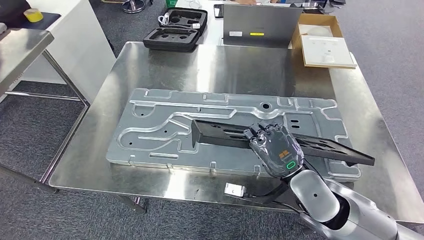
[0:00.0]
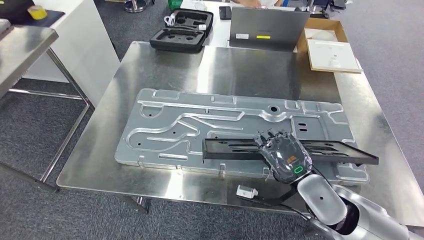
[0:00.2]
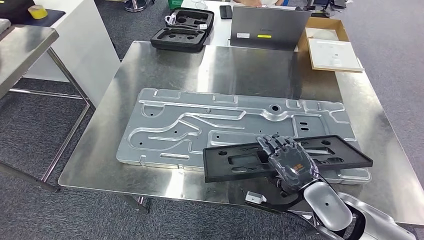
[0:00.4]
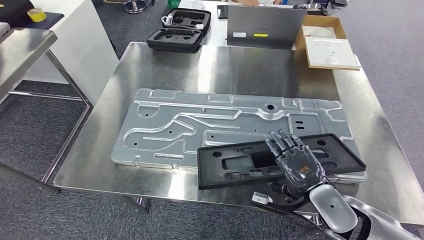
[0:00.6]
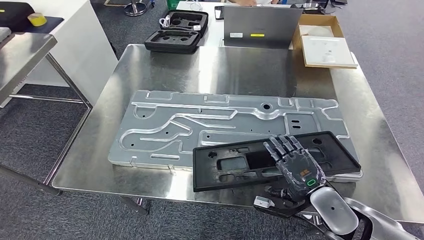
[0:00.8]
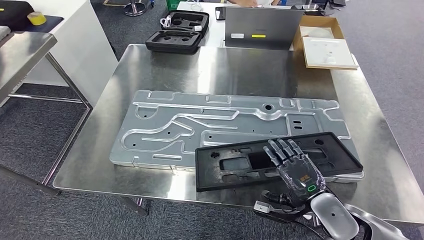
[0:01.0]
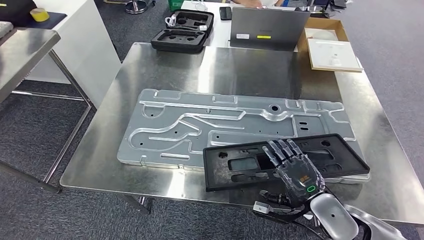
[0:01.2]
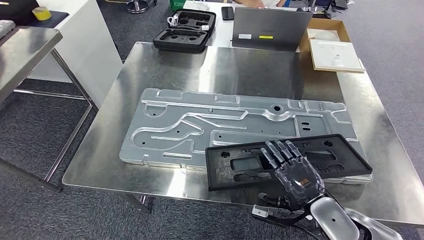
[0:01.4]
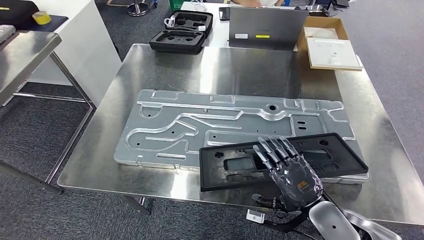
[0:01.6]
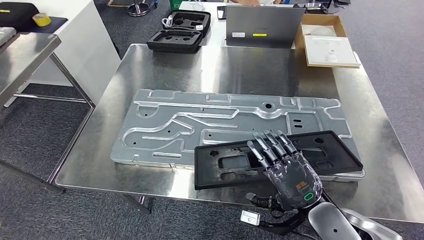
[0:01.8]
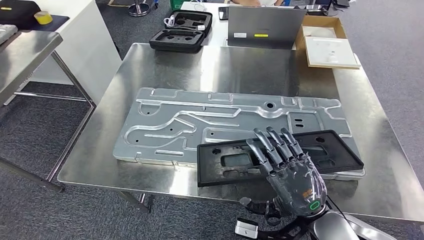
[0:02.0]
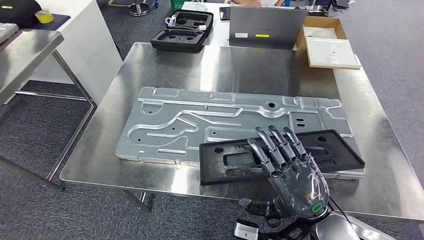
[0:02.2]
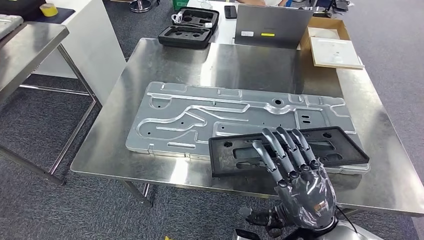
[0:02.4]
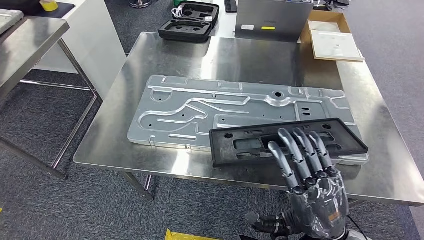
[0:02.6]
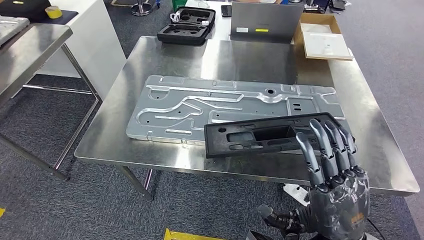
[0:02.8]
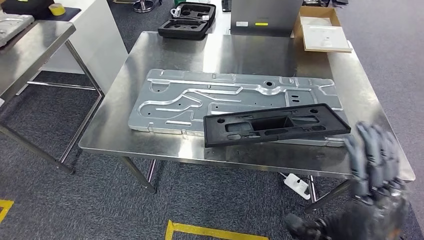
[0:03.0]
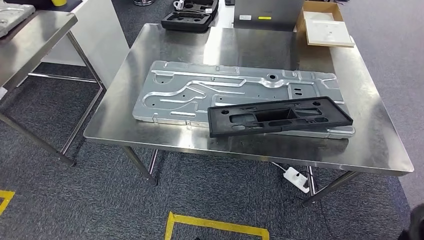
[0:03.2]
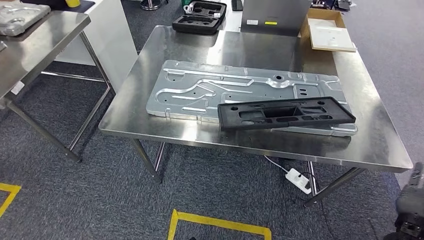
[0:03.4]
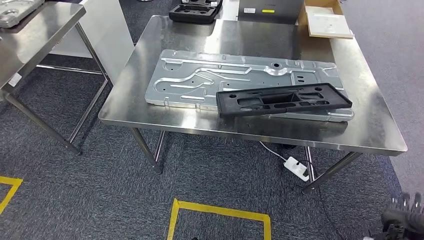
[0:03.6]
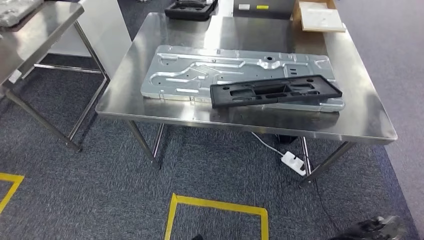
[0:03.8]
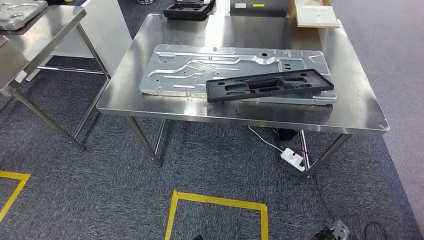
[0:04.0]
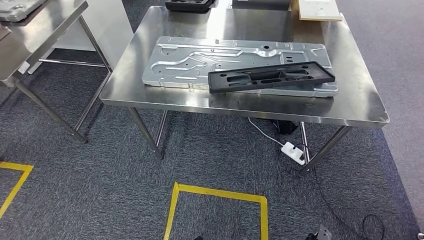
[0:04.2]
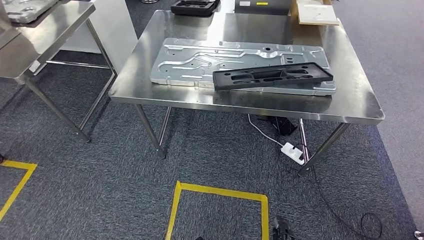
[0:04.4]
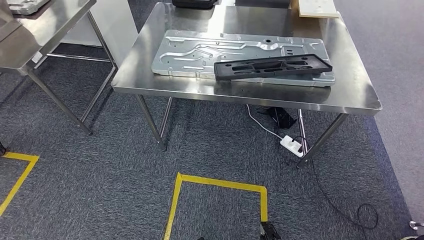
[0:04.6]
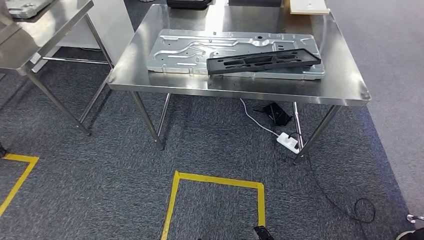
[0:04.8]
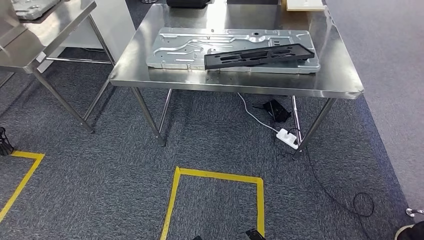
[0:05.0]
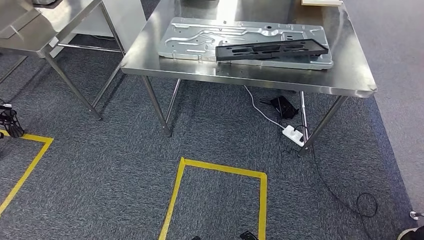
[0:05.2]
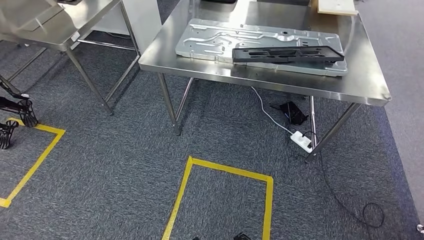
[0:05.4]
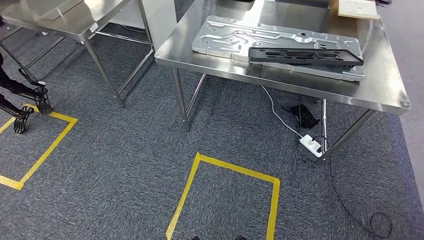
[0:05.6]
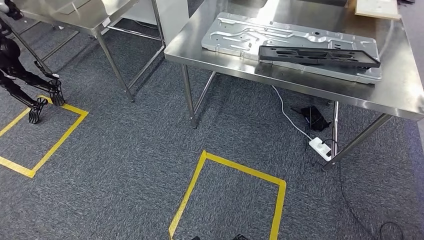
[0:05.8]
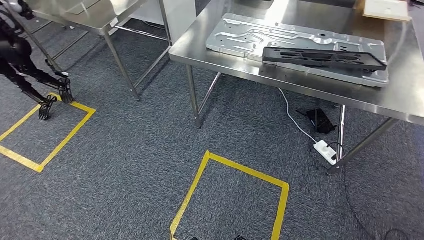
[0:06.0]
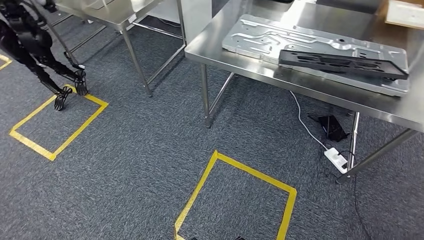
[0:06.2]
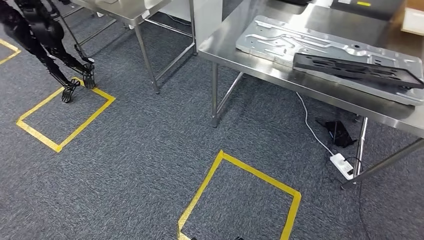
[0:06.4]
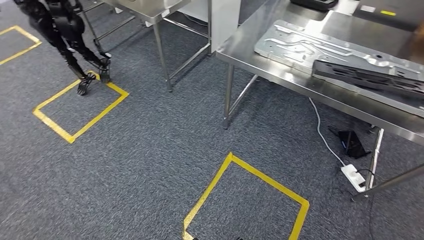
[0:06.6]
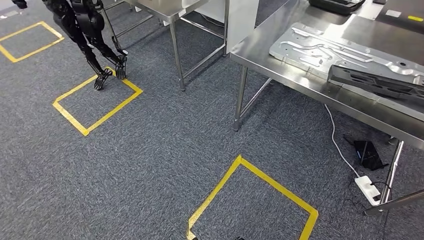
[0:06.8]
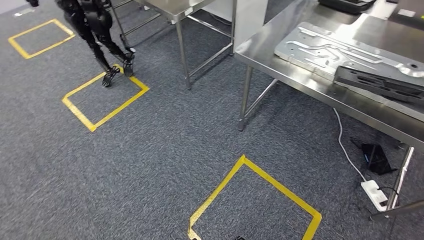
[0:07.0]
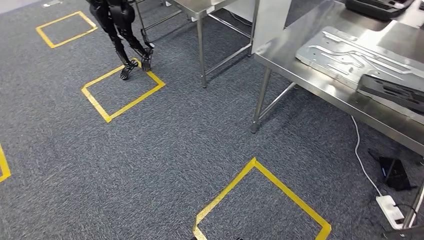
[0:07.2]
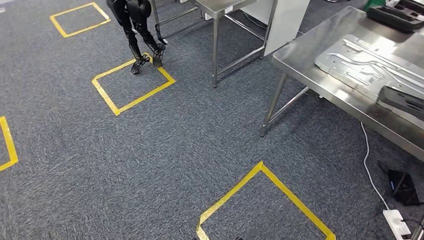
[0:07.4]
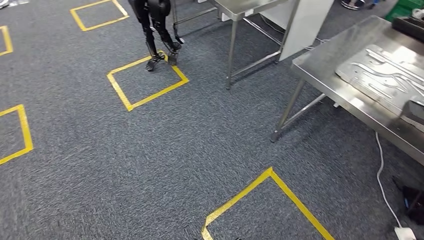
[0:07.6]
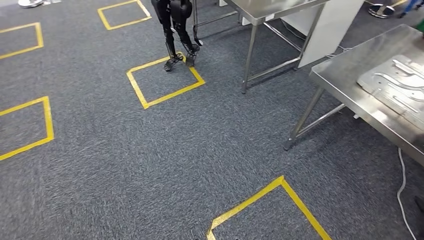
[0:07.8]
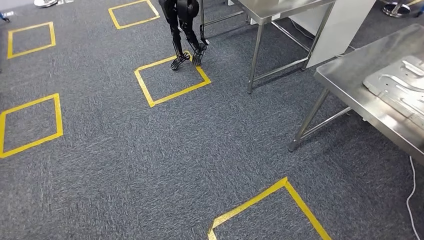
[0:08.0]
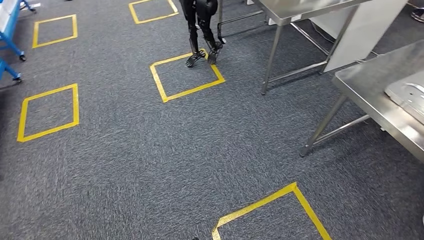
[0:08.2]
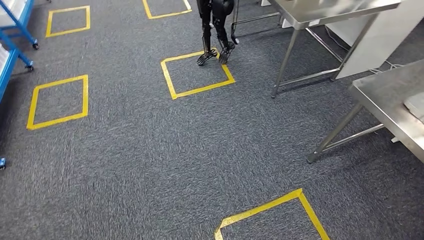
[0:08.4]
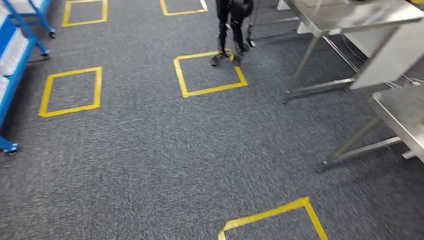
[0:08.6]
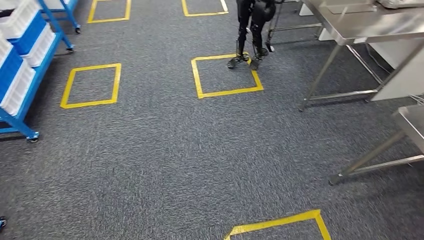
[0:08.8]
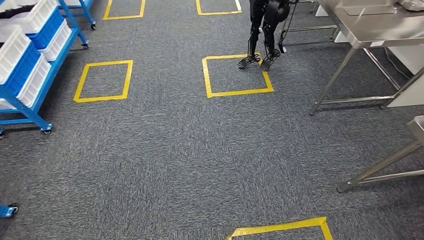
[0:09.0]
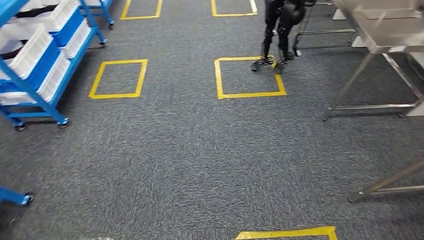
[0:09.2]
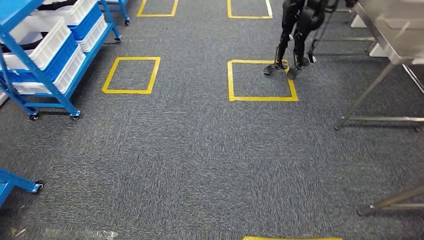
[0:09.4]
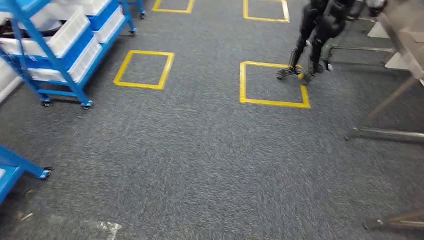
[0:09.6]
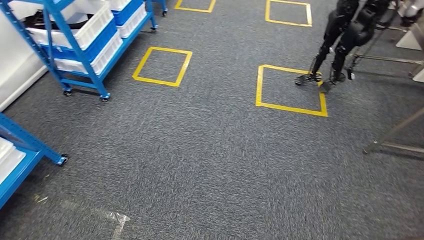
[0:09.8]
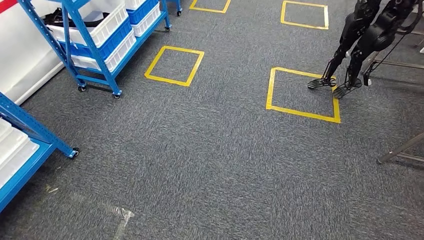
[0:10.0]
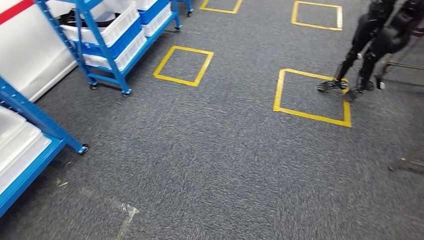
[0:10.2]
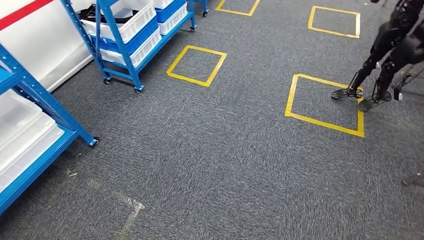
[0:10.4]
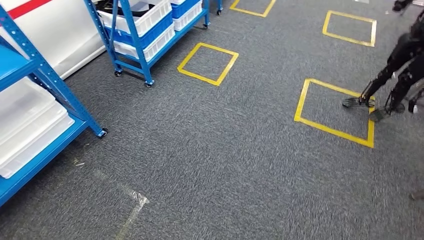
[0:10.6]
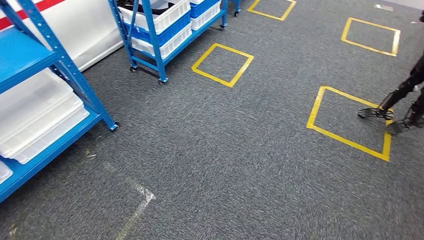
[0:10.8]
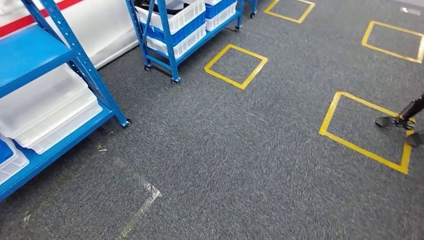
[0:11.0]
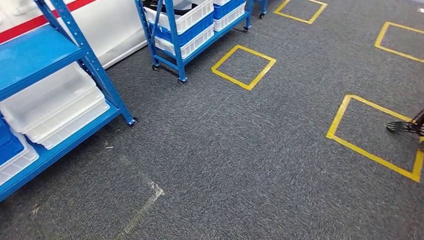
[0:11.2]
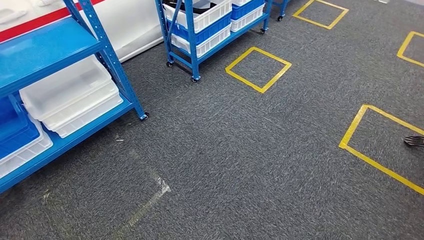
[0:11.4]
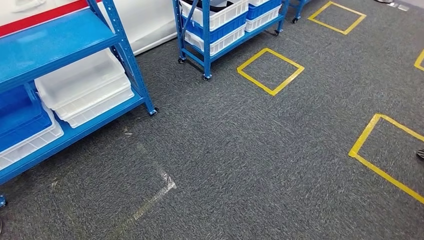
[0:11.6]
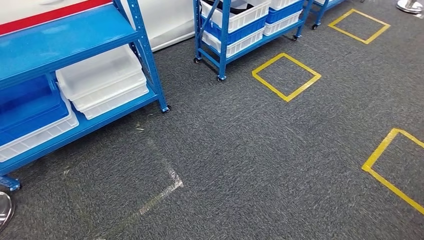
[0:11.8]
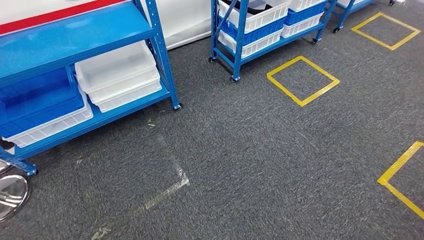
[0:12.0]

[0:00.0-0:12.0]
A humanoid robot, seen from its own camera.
Step, 0:00.0 to 0:04.6: Insert the large material into the corresponding slot on the workbench.

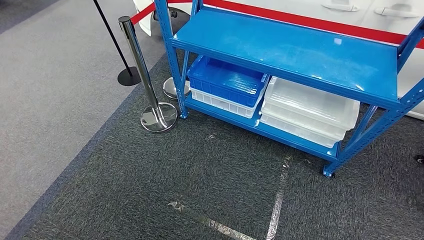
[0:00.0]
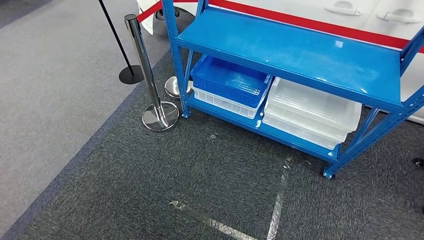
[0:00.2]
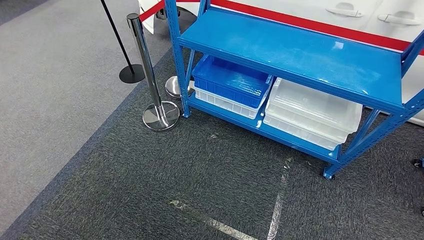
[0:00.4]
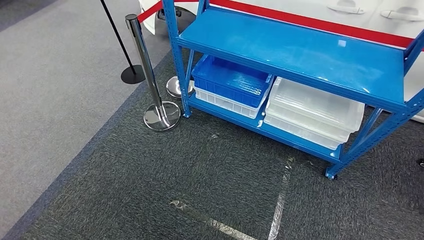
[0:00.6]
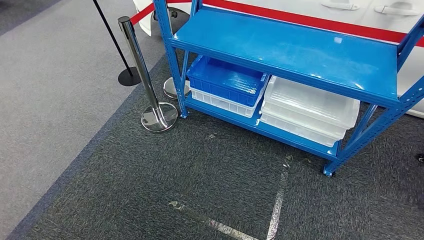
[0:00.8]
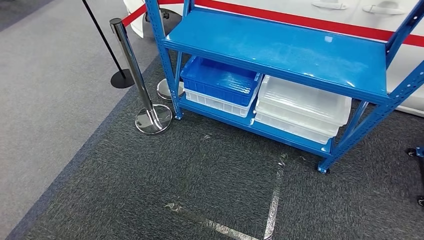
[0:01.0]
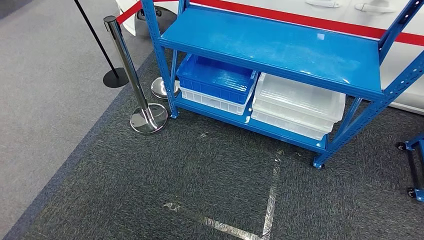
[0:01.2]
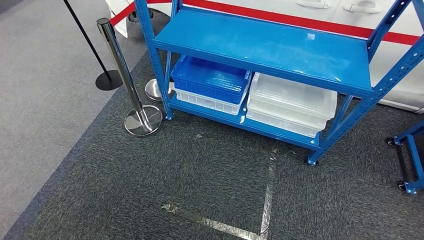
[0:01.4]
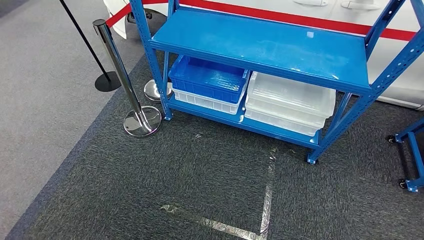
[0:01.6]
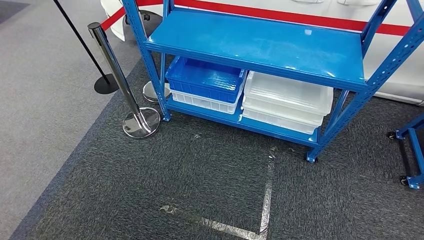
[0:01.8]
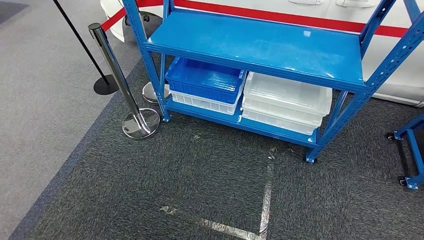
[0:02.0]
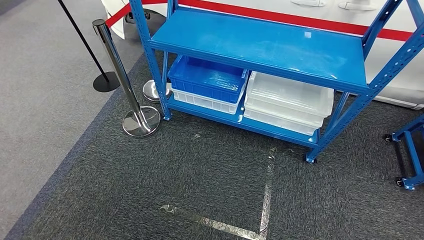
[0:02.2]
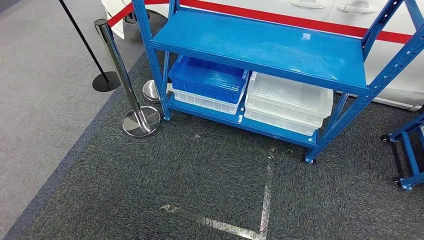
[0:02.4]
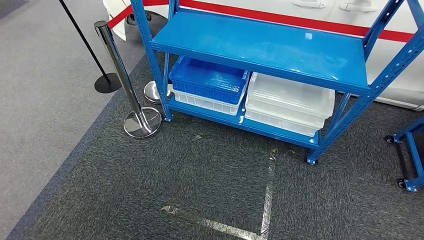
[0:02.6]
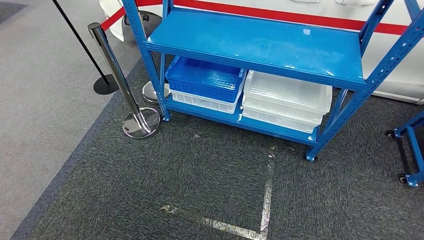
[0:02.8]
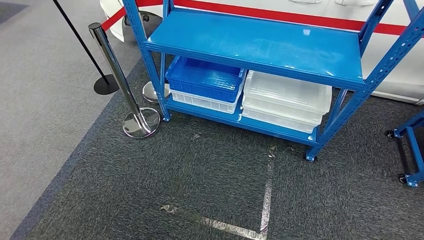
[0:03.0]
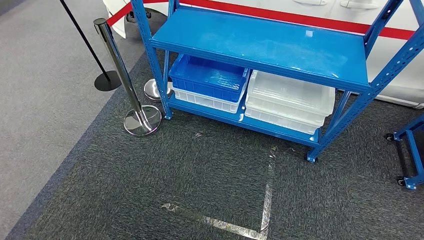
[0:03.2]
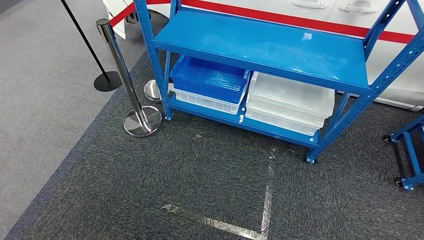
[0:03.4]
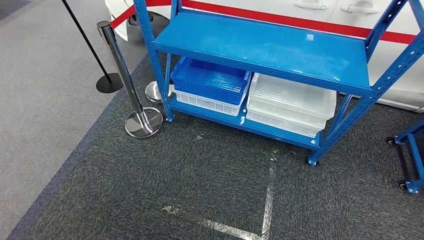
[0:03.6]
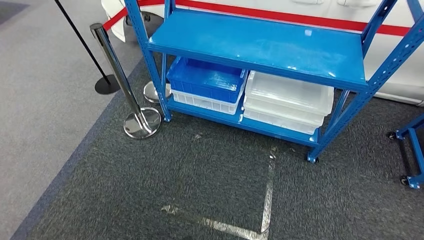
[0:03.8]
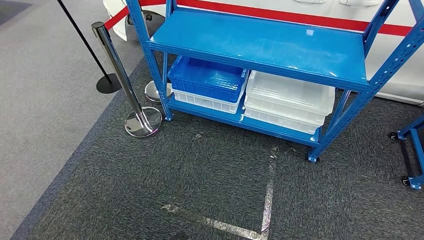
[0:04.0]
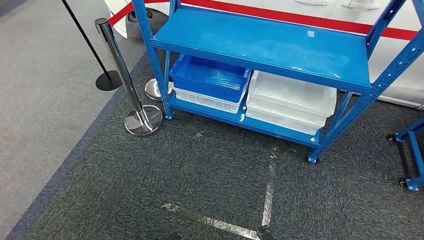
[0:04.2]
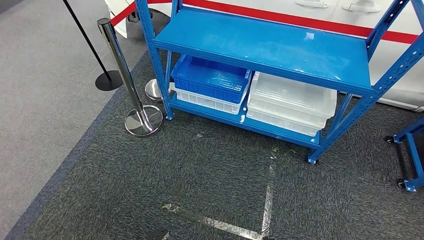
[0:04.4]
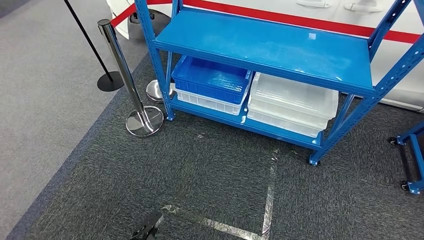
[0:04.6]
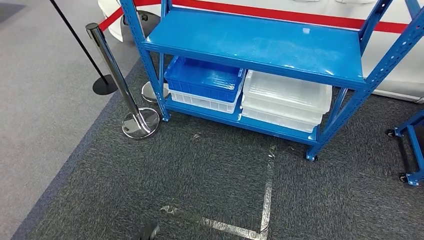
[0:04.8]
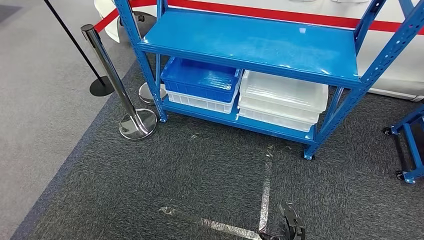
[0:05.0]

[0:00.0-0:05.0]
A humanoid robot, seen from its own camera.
Step, 0:00.0 to 0:04.8: Return to the initial position at the shelf.
0:01.6 to 0:03.4: The hands make only small movements.
